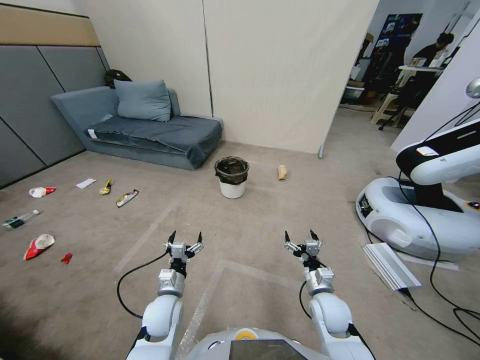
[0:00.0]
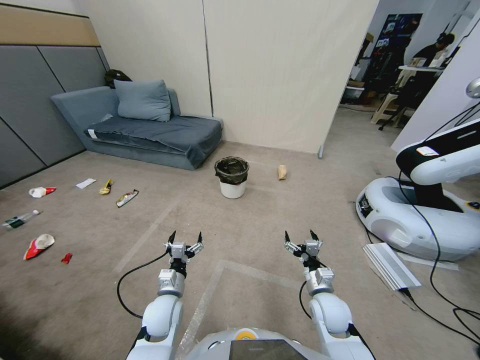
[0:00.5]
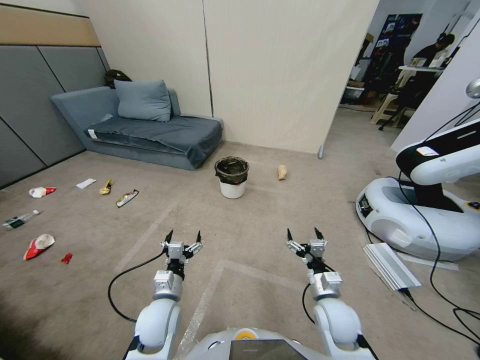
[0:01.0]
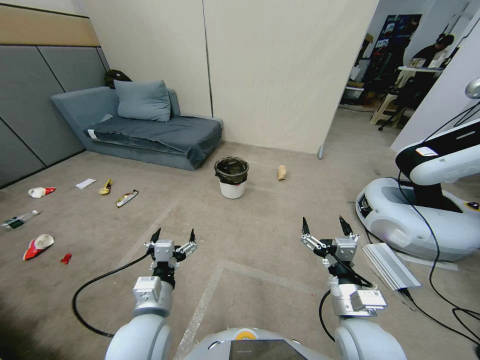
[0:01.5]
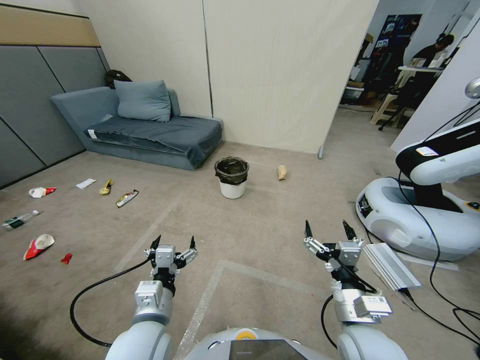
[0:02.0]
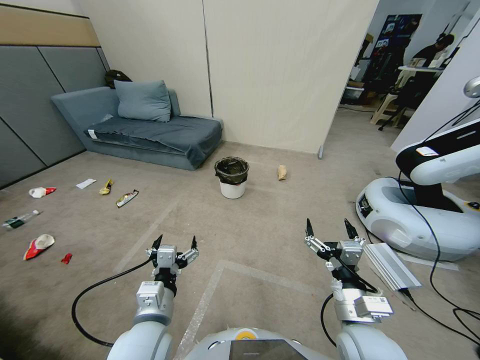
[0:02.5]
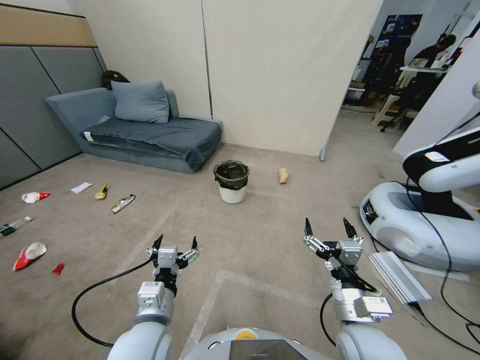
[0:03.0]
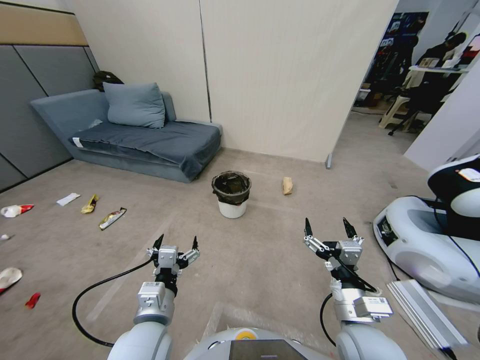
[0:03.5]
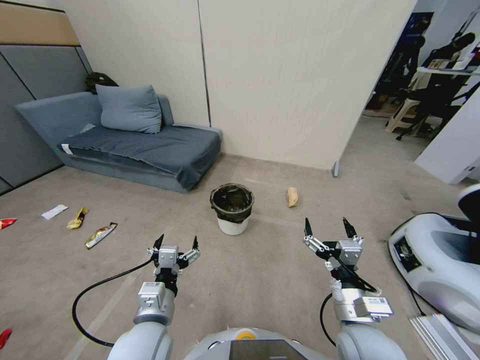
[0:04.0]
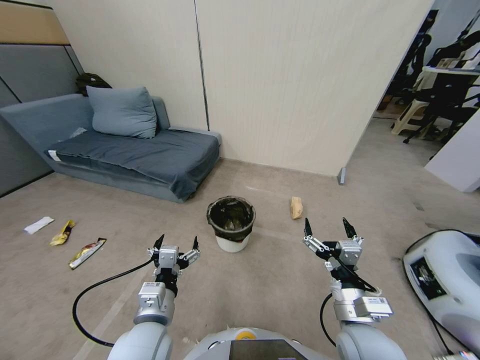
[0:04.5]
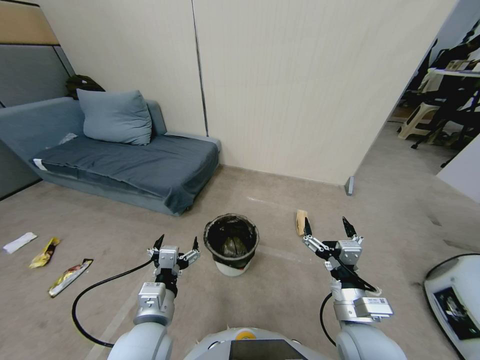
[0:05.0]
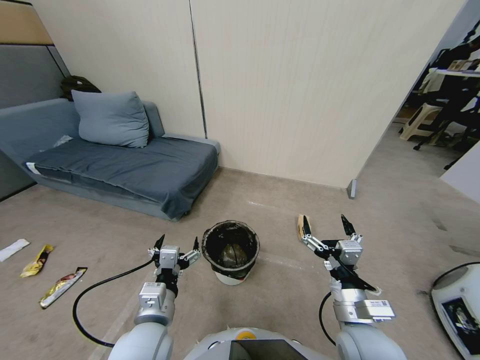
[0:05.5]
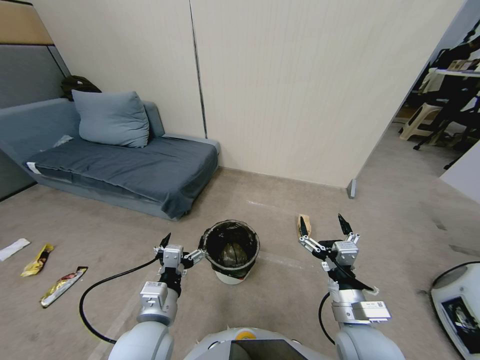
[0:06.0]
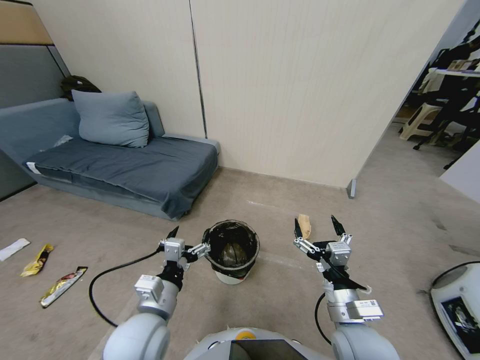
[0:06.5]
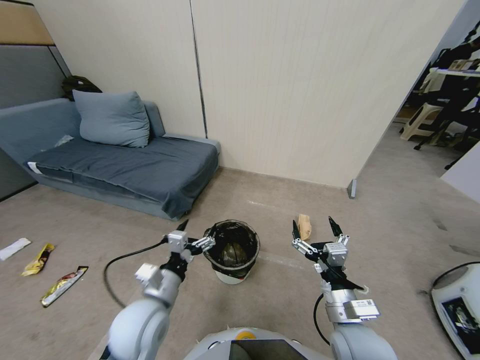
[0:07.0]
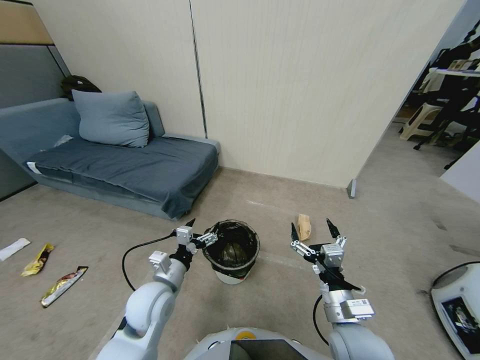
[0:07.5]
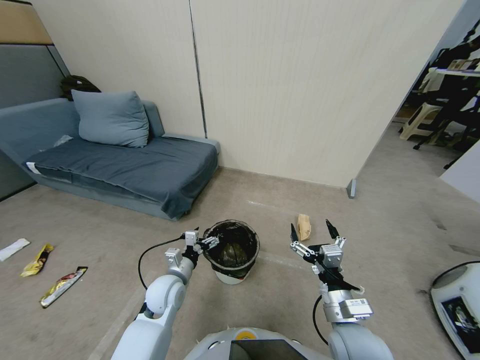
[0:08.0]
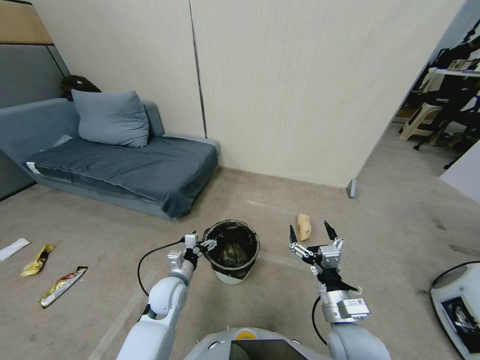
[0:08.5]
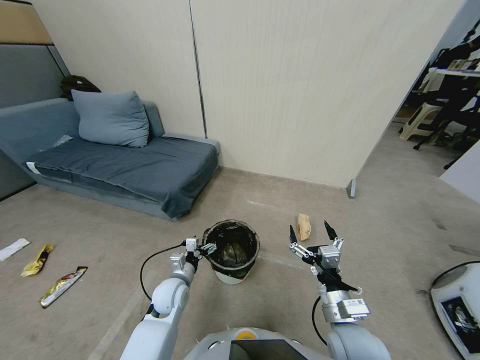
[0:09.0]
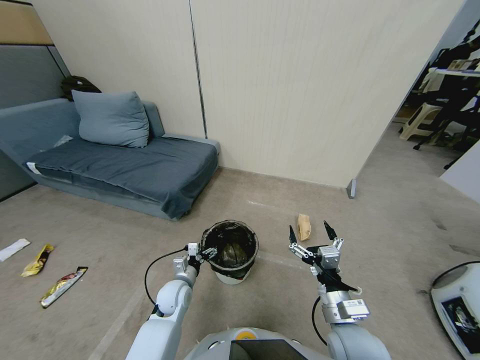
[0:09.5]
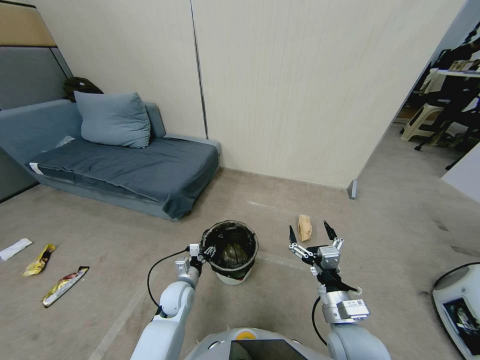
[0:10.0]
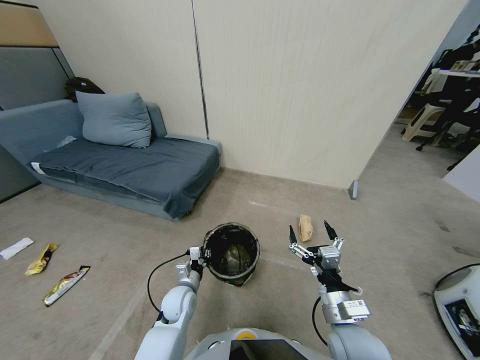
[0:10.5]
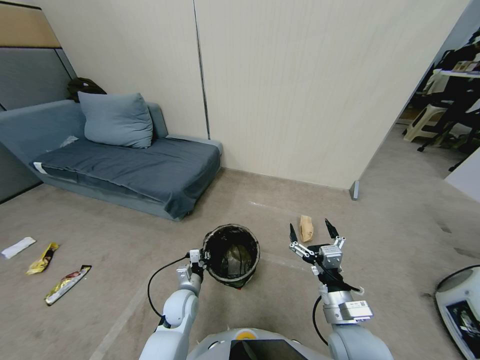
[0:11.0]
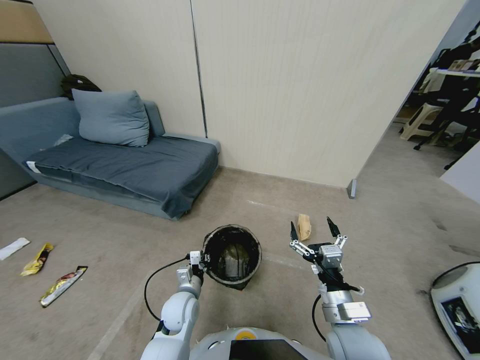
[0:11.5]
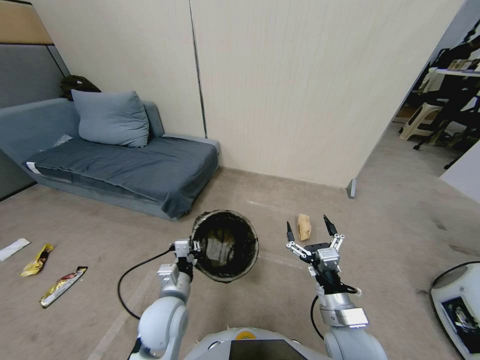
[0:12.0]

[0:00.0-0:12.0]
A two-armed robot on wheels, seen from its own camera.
Task of the whole recording: Pick up the trash bin, then pick up the garbage from the floor and place it into the trash bin.
0:06.0 to 0:08.0: The left gripper travels forward and downward by some 15 cm.
0:08.0 to 0:10.0: The left gripper moves downward, approximately 10 cm, and closes.
0:10.0 to 0:12.0: The left gripper heads upward and backward, covering some 20 cm, and closes its fingers.

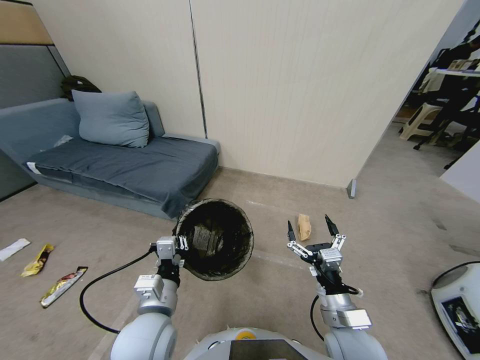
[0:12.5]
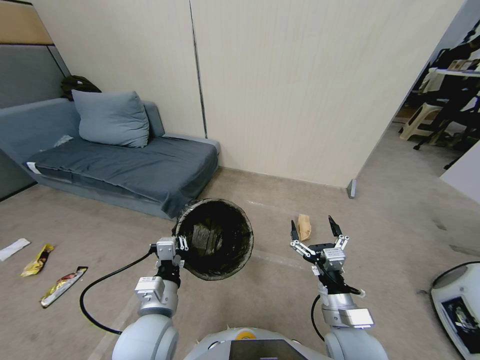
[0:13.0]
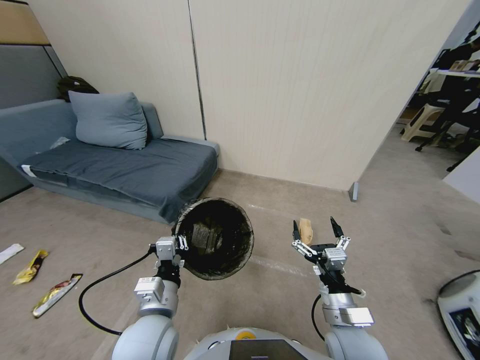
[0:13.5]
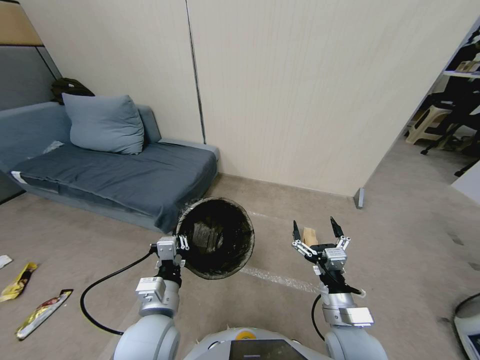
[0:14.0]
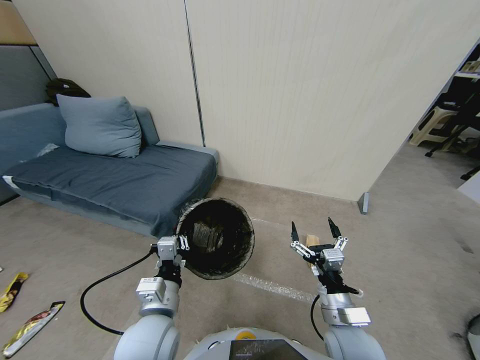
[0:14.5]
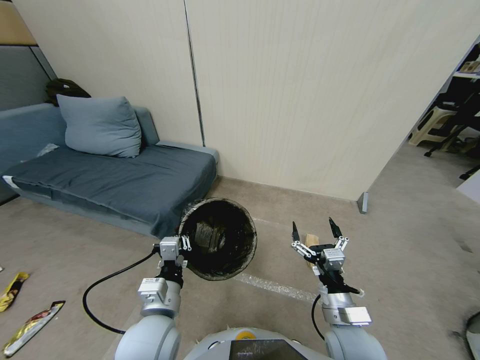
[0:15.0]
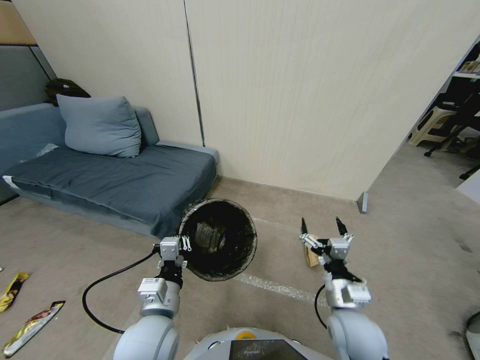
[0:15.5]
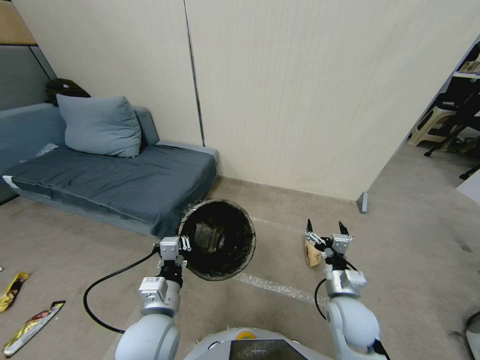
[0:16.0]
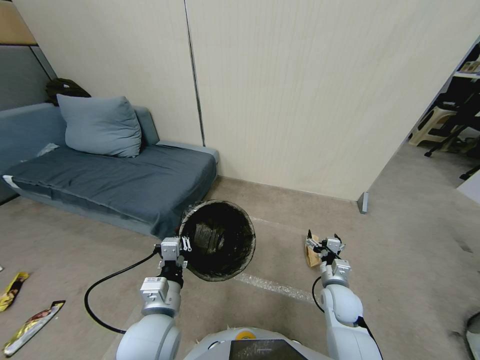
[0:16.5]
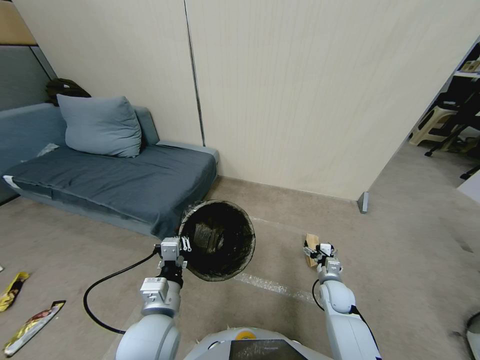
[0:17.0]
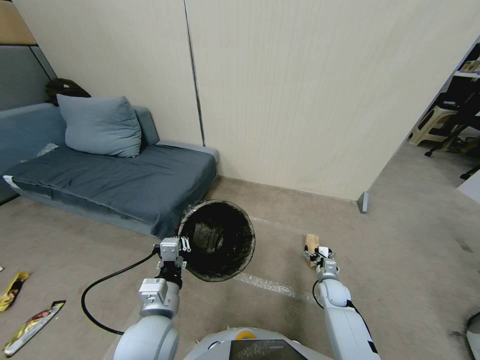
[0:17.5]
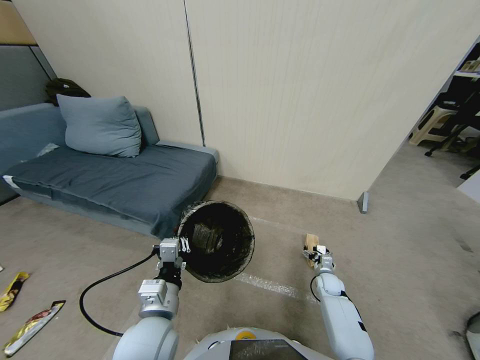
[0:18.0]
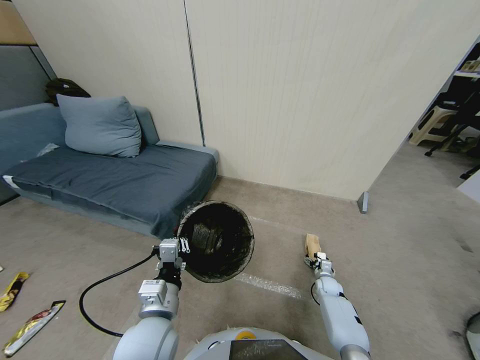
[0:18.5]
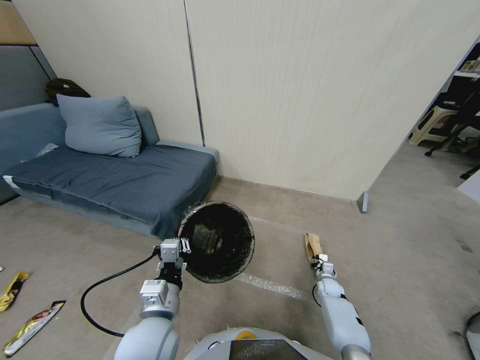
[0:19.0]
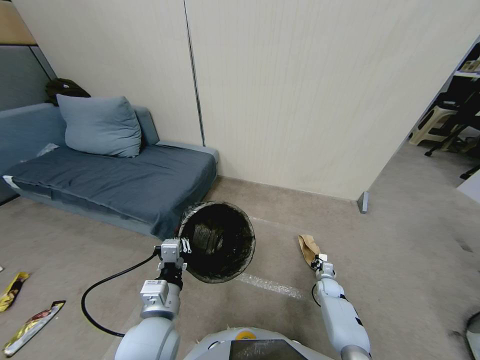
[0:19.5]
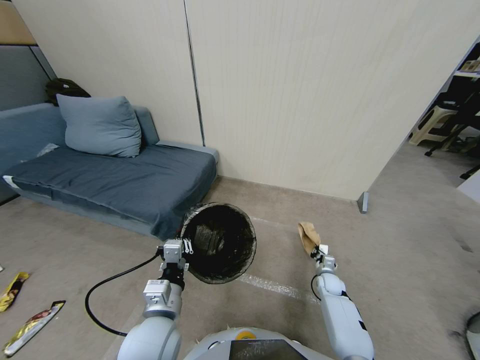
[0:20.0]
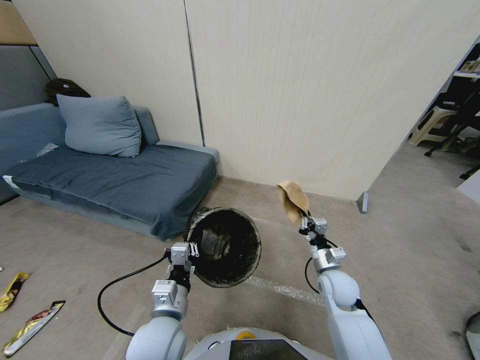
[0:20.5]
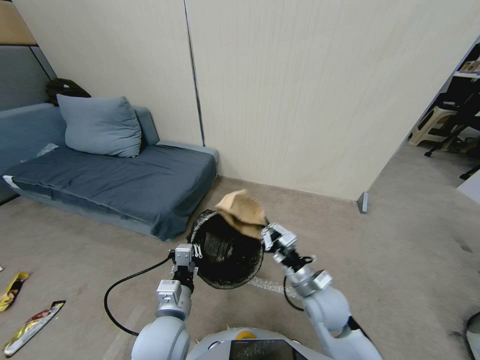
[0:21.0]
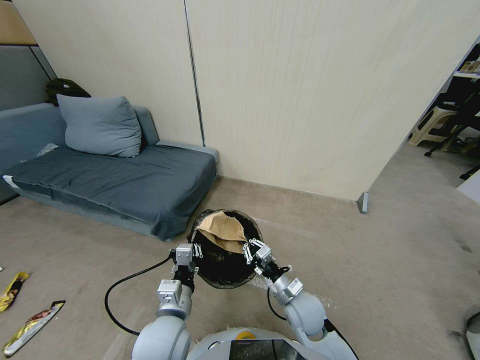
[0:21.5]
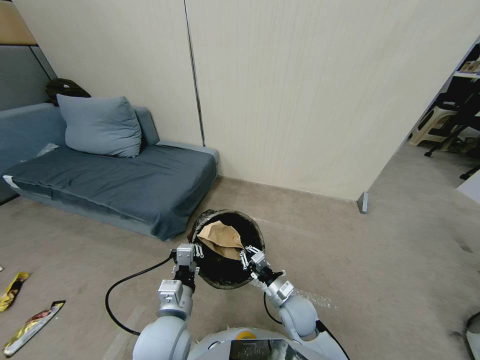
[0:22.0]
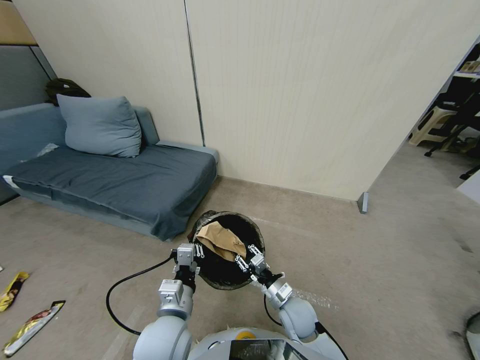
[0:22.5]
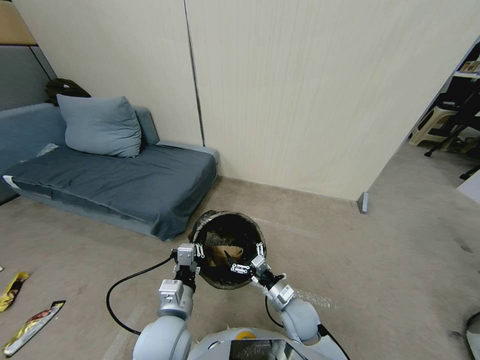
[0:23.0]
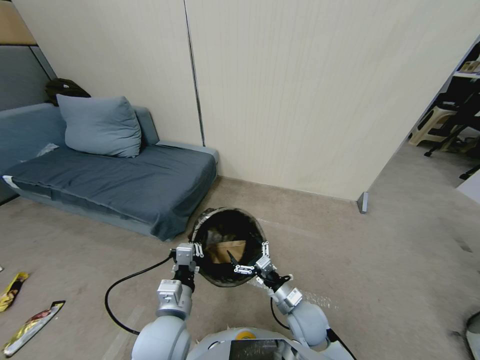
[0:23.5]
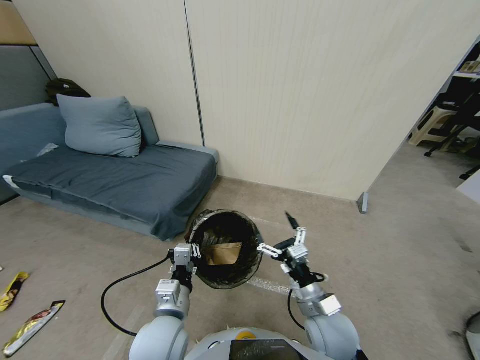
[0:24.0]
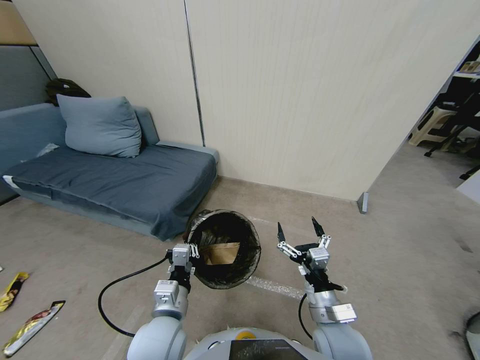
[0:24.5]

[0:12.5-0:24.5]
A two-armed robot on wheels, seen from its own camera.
Task of the whole recording: Pick up the trash bin, then pick up the garbage from the floor and place it into the trash bin.
0:14.5 to 0:16.5: The right gripper travels forward, downward and to the right by roughly 15 cm.
0:16.5 to 0:18.5: The right gripper heads downward, to the right and forward, covering some 20 cm.
0:18.5 to 0:20.5: The right gripper heads upward and to the left, covering approximately 30 cm, and closes.
0:20.5 to 0:22.5: The right gripper goes approximately 15 cm to the left and downward, and opens its fingers.
0:22.5 to 0:24.5: The right gripper moves upward and backward, roughly 15 cm, and opens its fingers.

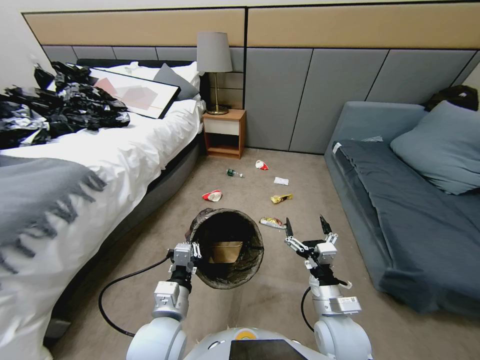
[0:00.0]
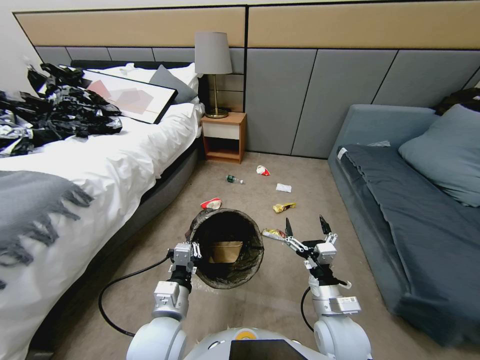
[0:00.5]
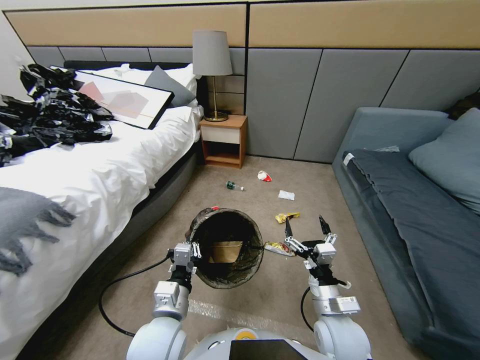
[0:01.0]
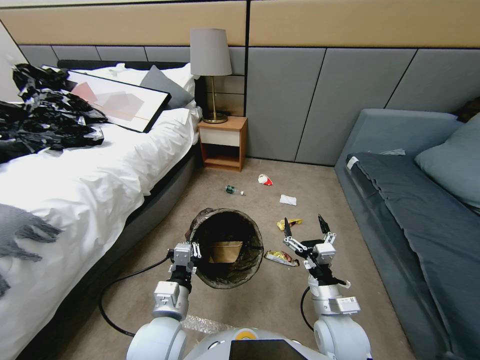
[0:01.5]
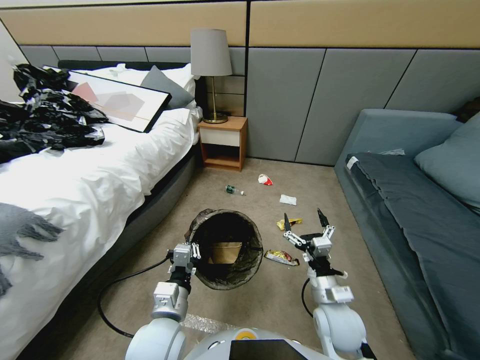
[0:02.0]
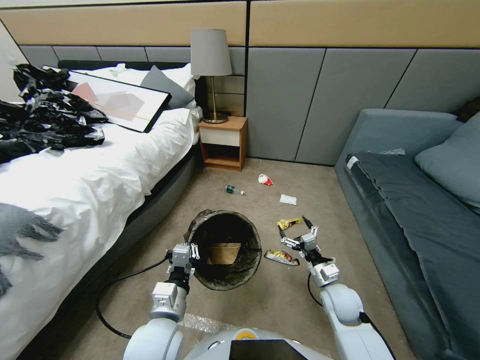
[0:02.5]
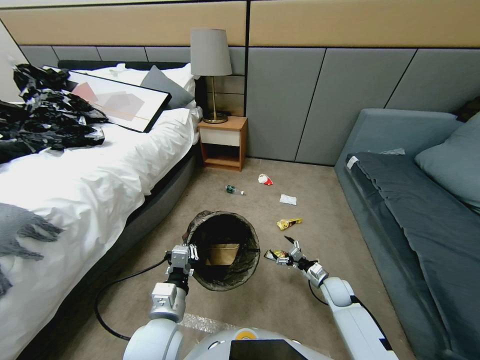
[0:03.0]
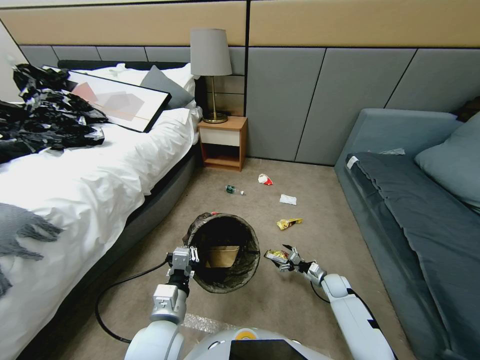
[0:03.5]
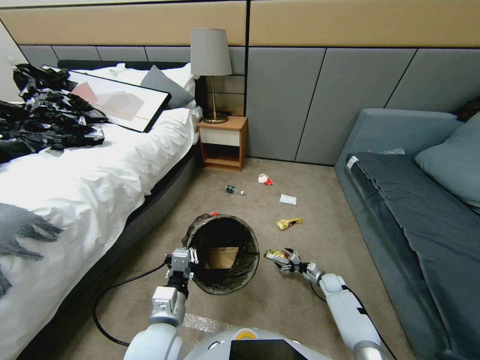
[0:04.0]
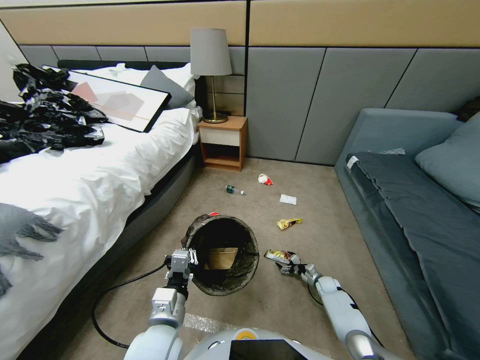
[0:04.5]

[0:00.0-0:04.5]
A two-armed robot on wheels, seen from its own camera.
Task of the whole recording: Pick up the trash bin, then pick up the garbage from the floor and place it into the trash bin.
0:02.0 to 0:04.5: The right gripper heads downward, to the right and forward, covering about 35 cm.
